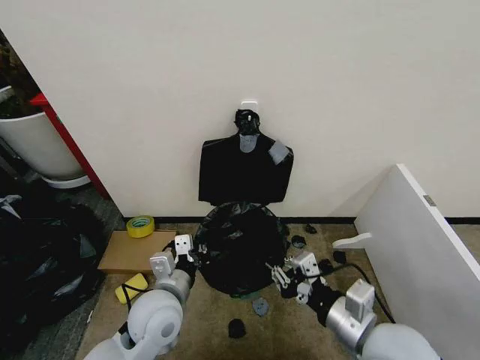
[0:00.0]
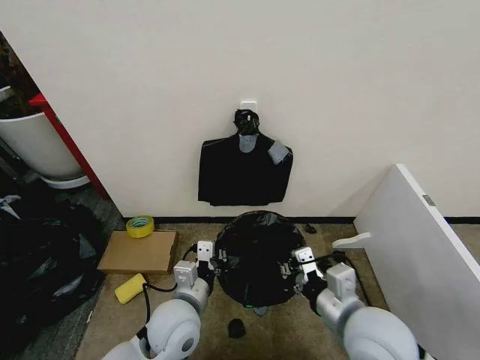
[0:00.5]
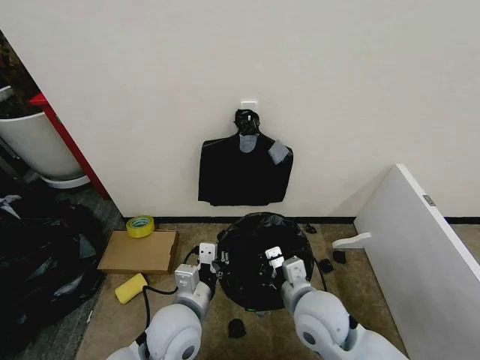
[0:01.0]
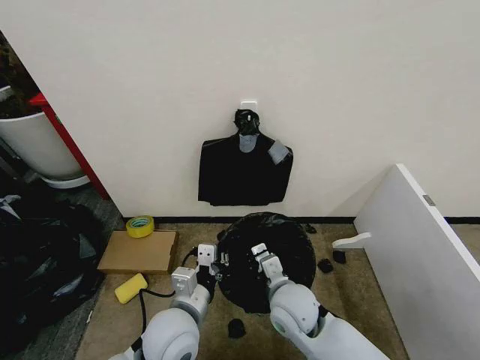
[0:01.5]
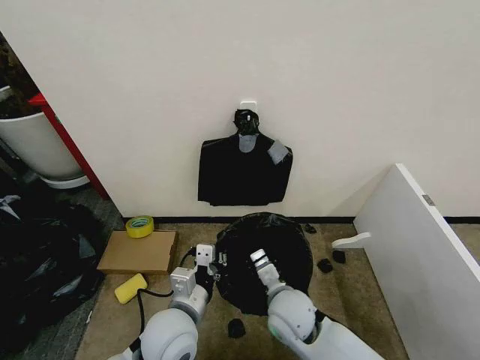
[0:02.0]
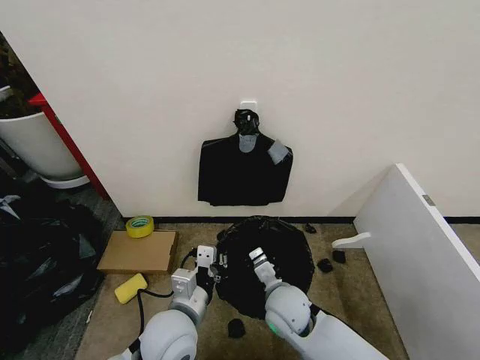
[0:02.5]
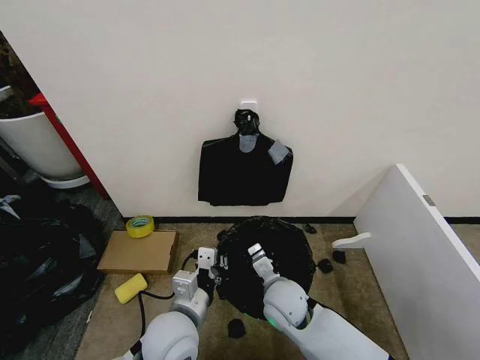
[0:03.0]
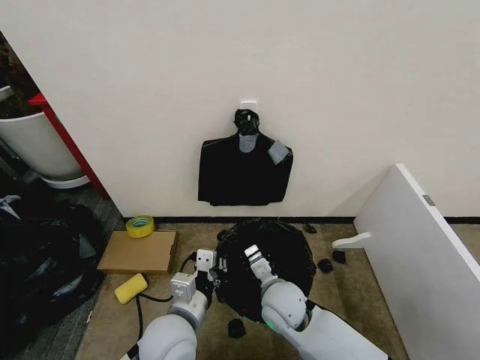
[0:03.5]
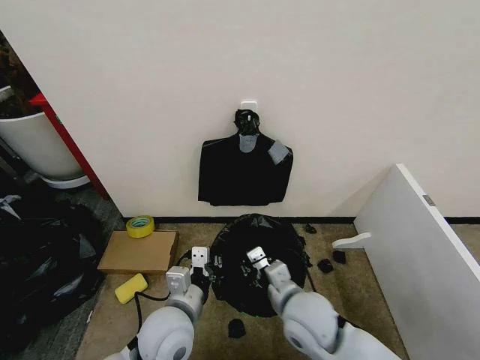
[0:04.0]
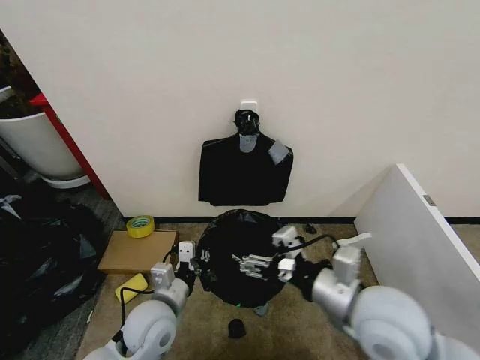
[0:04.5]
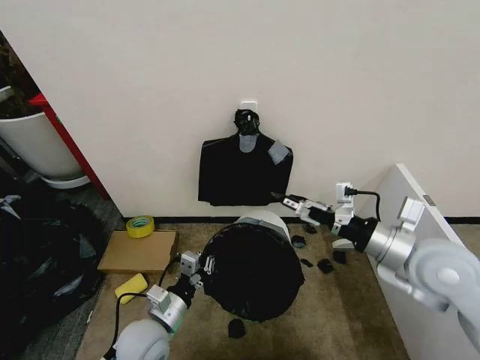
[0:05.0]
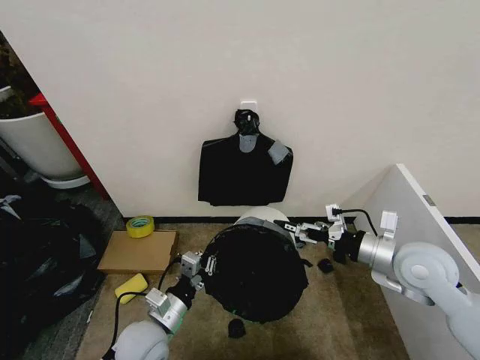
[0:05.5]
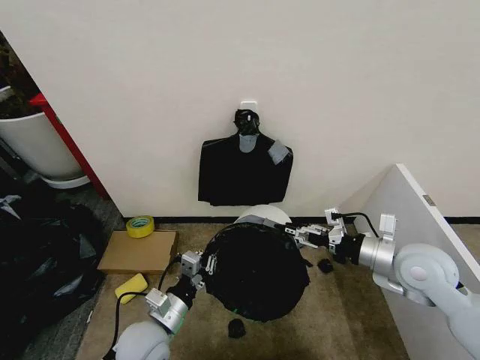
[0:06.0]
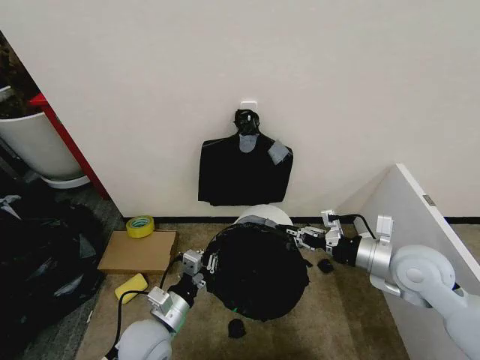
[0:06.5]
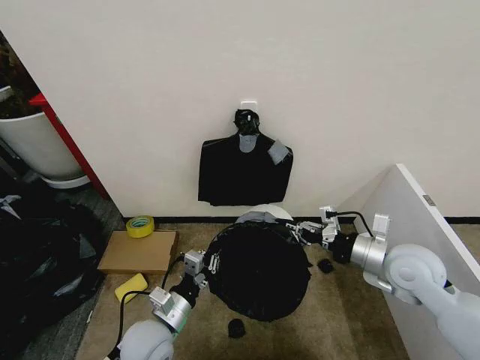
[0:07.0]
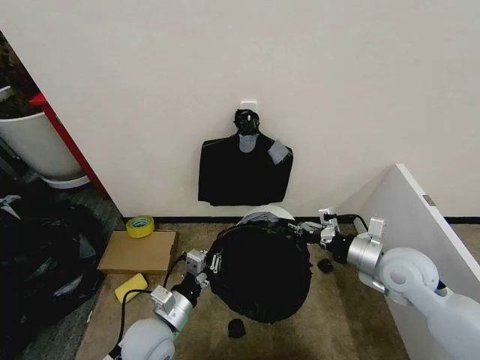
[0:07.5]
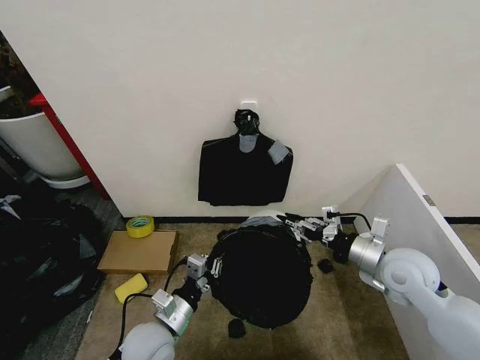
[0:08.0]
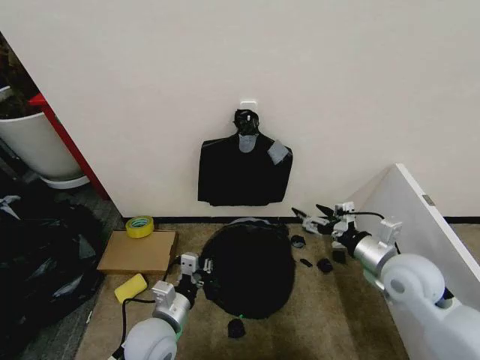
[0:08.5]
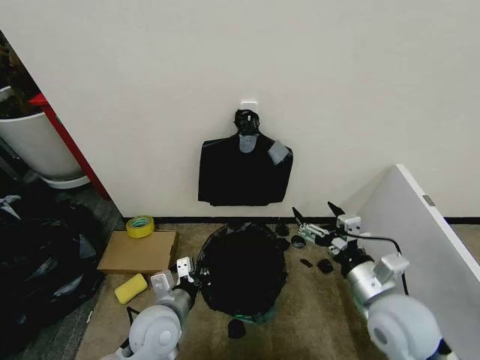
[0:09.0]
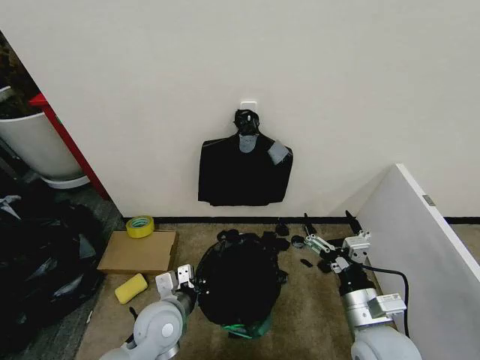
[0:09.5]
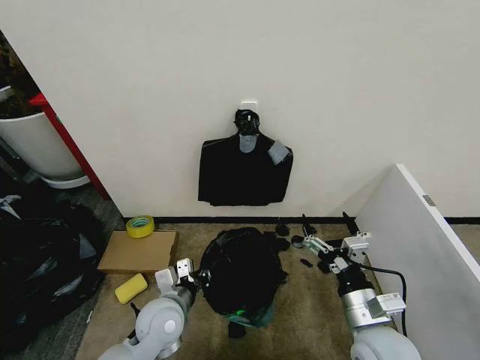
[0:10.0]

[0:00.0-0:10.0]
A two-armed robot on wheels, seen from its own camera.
Task of the whole recording: Place the garbage bag over the trash bin.
0:00.0 to 0:02.0: The right gripper travels to the left, downward and forward by approximately 20 cm.
0:02.0 to 0:04.0: The right gripper moves roughly 5 cm.
0:04.0 to 0:06.0: The left gripper travels downward and to the left by roughly 10 cm, while the right gripper is displaced to the right by roughly 20 cm, and opens, then closes once more.
0:06.0 to 0:08.0: The right gripper closes, then opens again.
0:08.0 to 0:10.0: The right gripper travels backward and to the left by approximately 15 cm, and opens up.

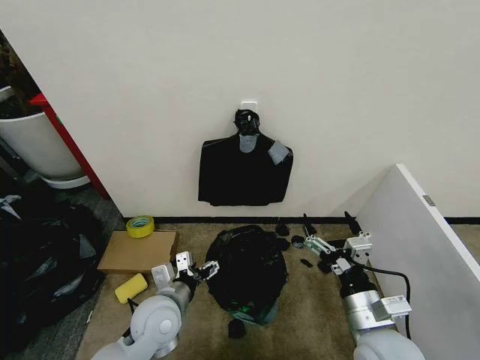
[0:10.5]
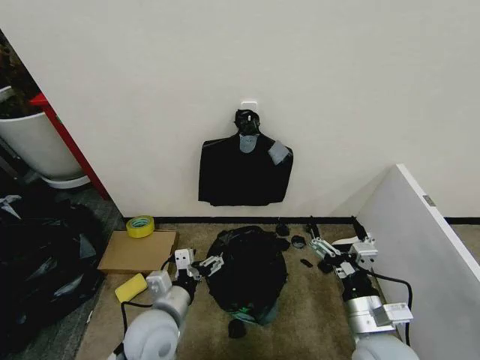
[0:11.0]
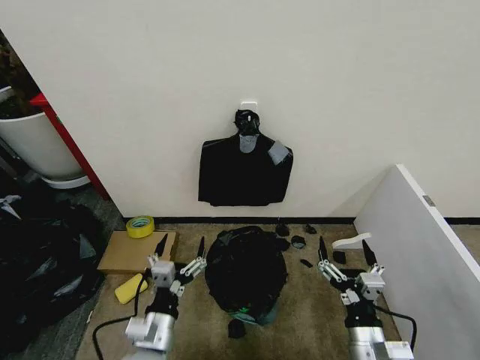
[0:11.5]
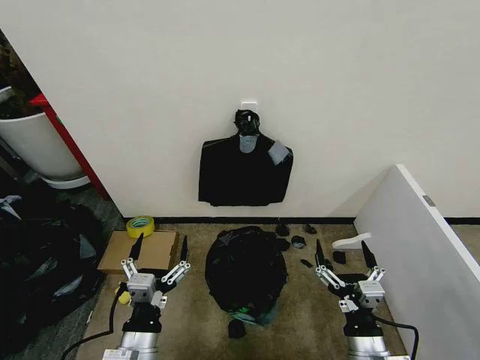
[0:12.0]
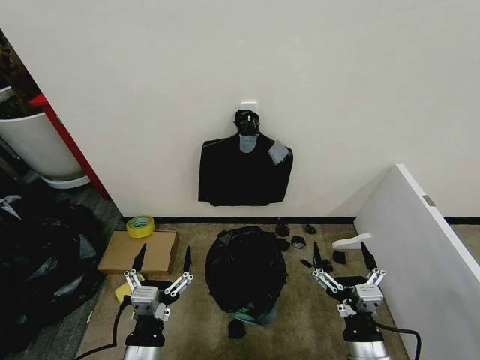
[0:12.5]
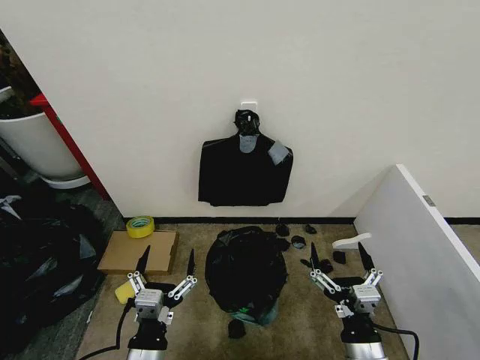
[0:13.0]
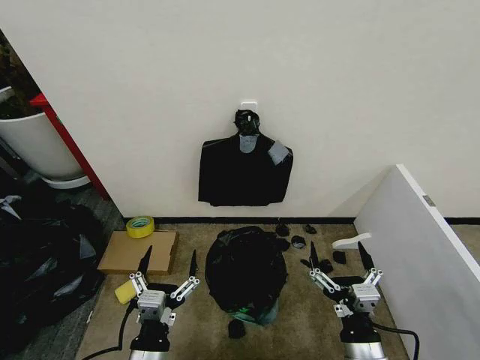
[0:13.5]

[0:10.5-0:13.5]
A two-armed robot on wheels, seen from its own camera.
Task of the whole recording: Place the garbage bag over the trash bin.
0:10.5 to 0:12.0: The right gripper is displaced downward and backward by approximately 10 cm, while the left gripper moves backward, approximately 15 cm.
0:12.0 to 0:13.5: The grippers make only small movements.

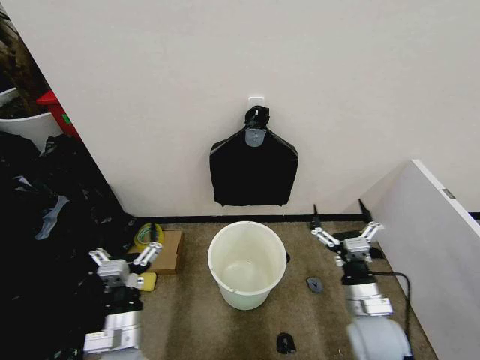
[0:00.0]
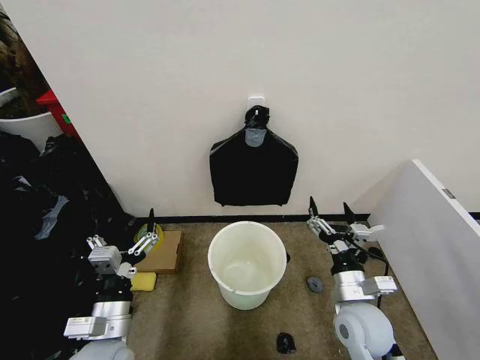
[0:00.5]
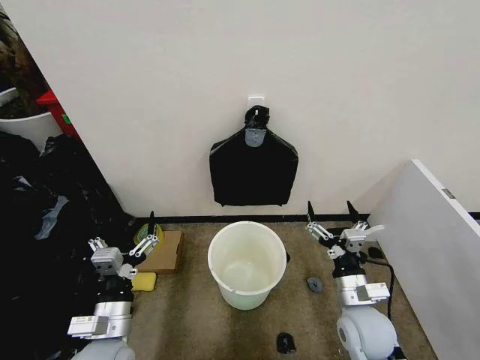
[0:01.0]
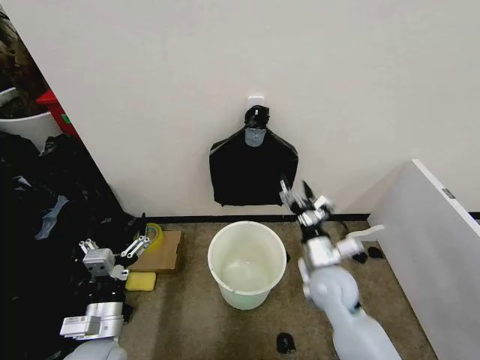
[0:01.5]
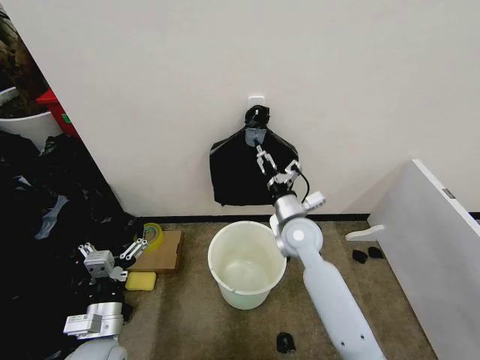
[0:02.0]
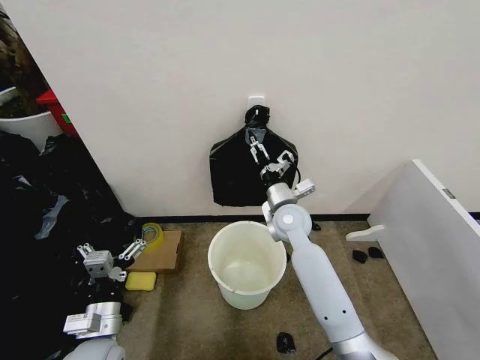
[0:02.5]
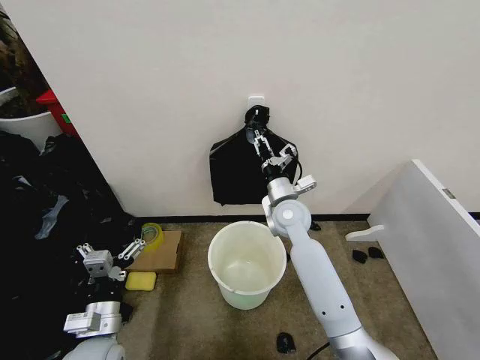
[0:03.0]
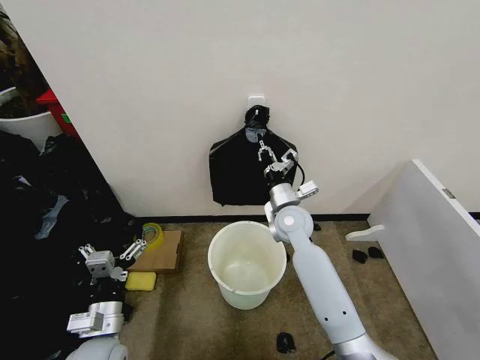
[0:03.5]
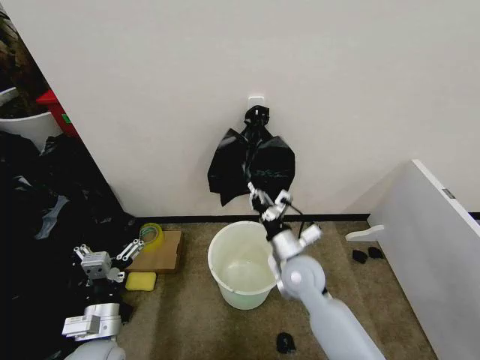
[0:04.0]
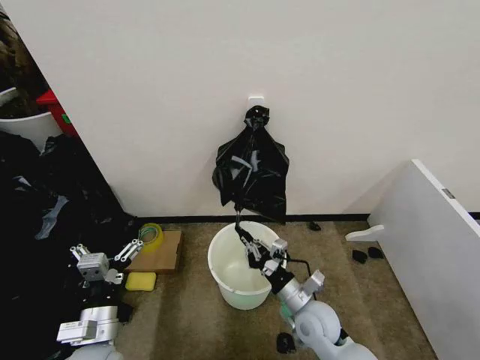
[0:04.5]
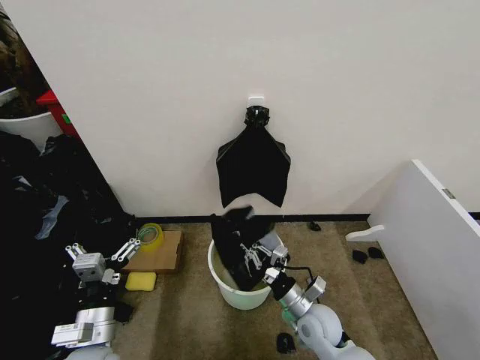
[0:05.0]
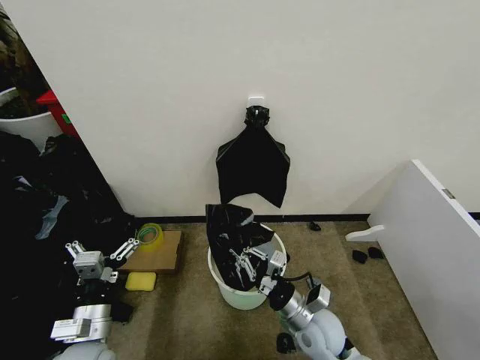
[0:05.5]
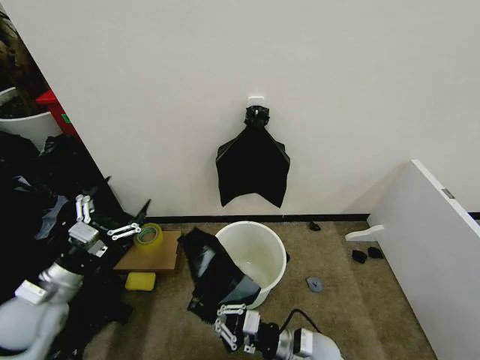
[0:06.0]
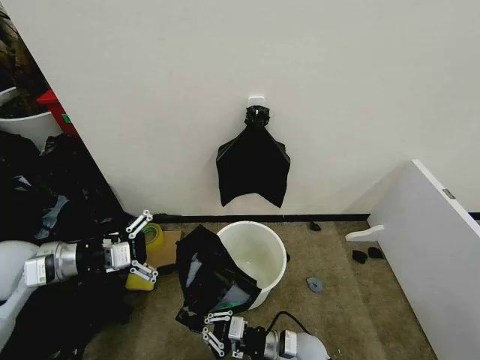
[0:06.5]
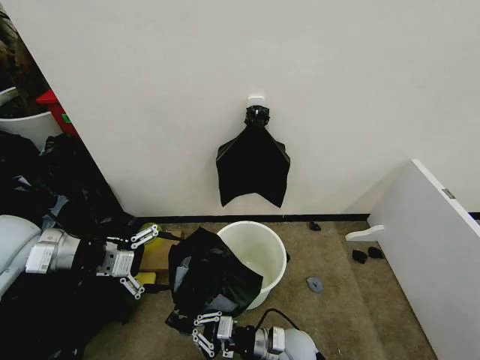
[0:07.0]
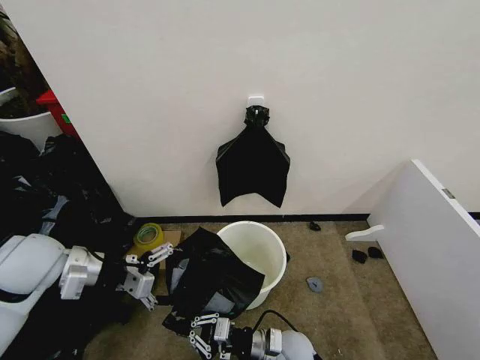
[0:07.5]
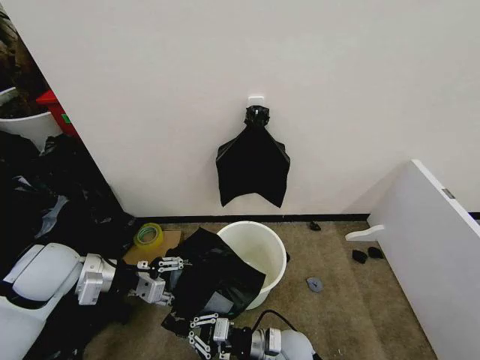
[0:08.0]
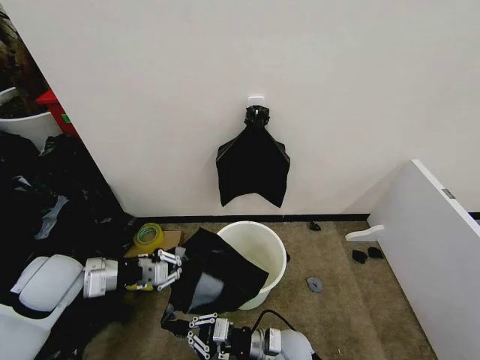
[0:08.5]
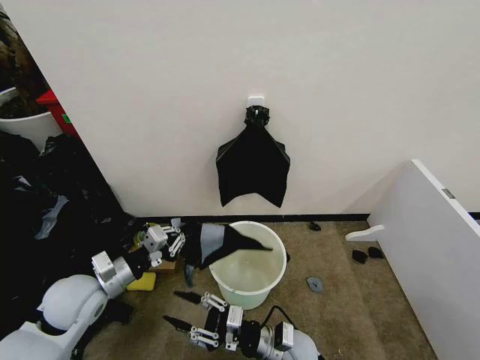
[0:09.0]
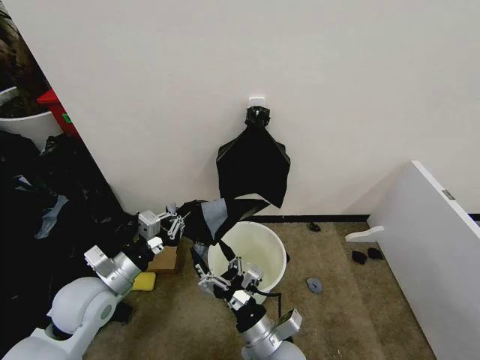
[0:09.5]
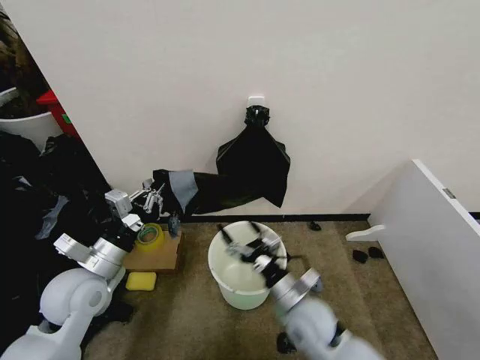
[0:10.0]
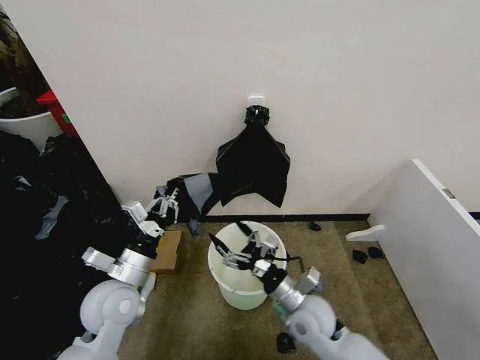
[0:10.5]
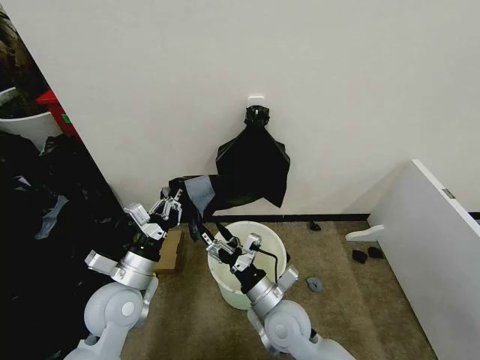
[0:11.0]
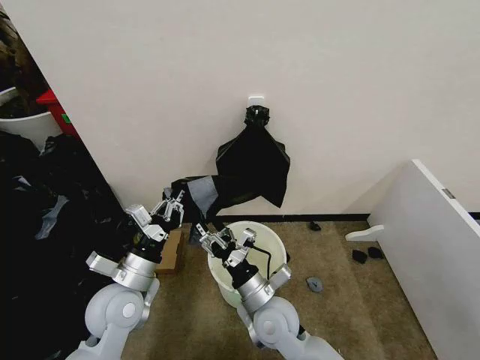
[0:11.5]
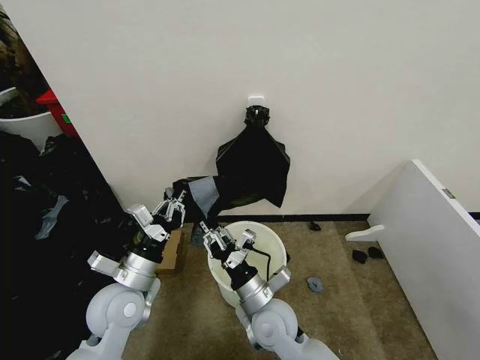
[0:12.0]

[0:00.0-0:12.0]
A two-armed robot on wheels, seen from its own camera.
Task of the whole recording: Place the garbage bag over the trash bin.
0:02.0 to 0:04.0: The right gripper moves backward, approximately 5 cm, and closes its fingers.
0:04.0 to 0:06.0: The left gripper moves to the left, forward and upward, roughly 15 cm, while the right gripper is displaced backward and downward by approximately 20 cm.
0:06.0 to 0:08.0: The right gripper travels to the left by approximately 5 cm; the left gripper moves upward and forward, approximately 10 cm, and closes.
0:08.0 to 0:10.0: The left gripper ends up roughly 5 cm from where it was, and closes its fingers, while the right gripper heads upward, covering about 10 cm, and opens.
0:10.0 to 0:12.0: The left gripper heads to the right, covering approximately 5 cm. Meanwhile the right gripper heads to the left, covering approximately 5 cm, and closes its fingers.
